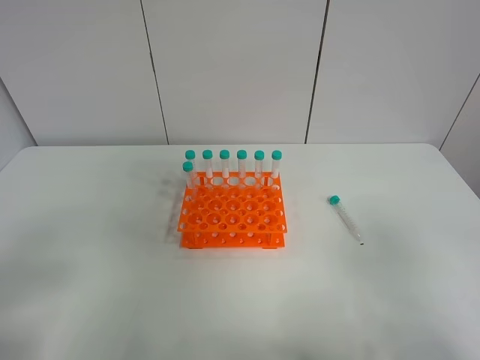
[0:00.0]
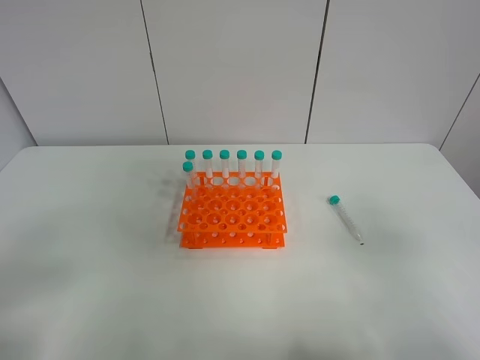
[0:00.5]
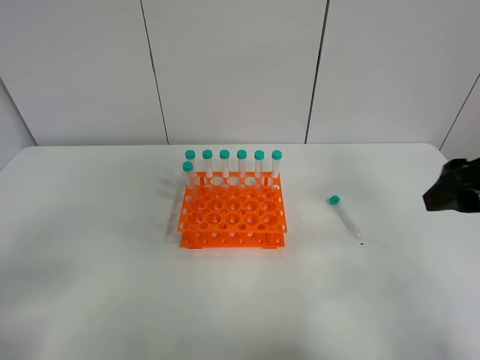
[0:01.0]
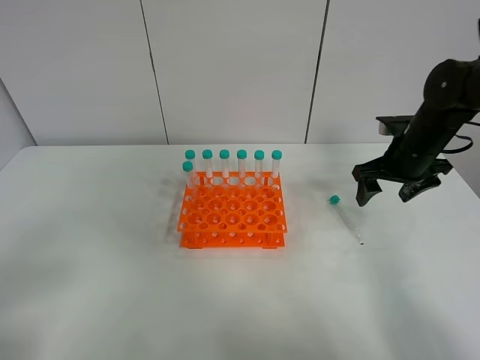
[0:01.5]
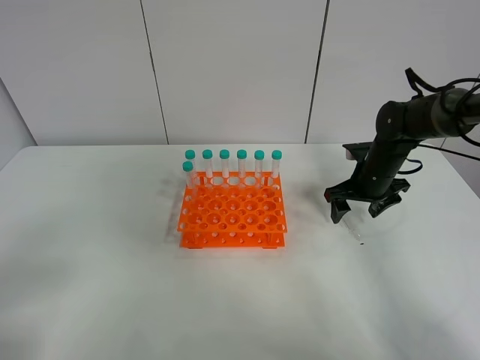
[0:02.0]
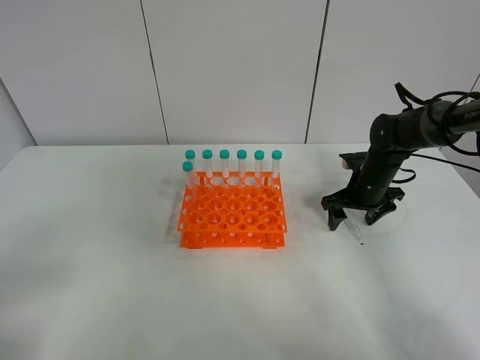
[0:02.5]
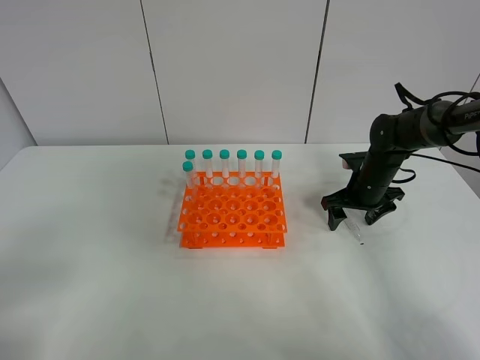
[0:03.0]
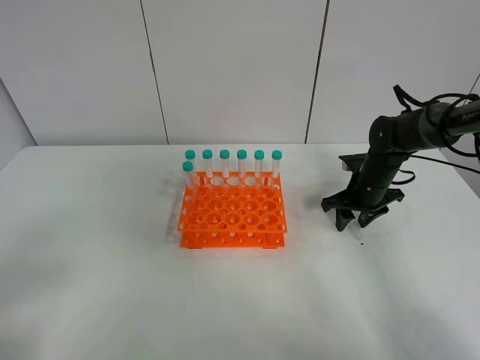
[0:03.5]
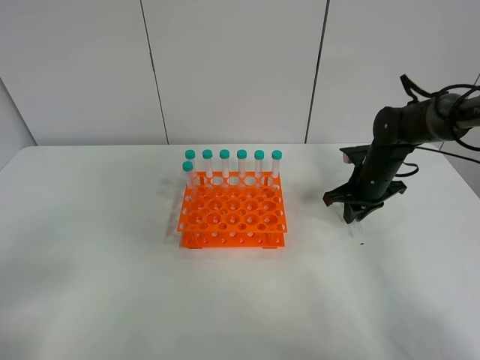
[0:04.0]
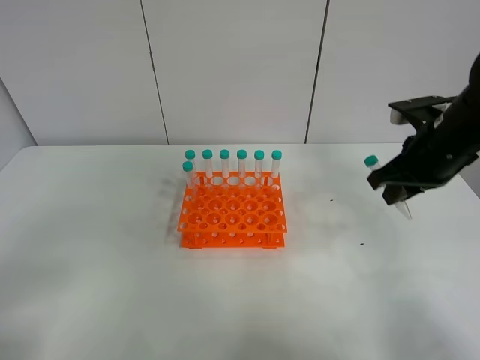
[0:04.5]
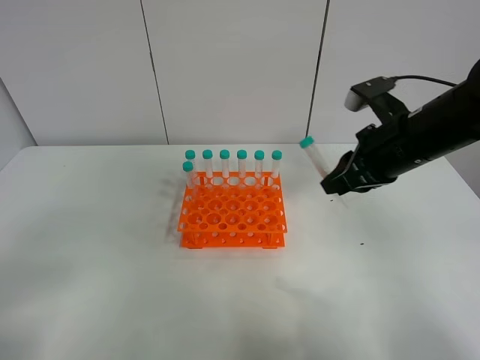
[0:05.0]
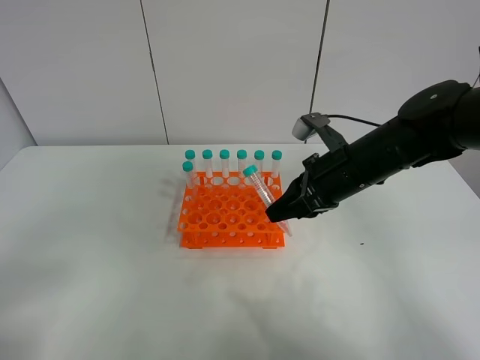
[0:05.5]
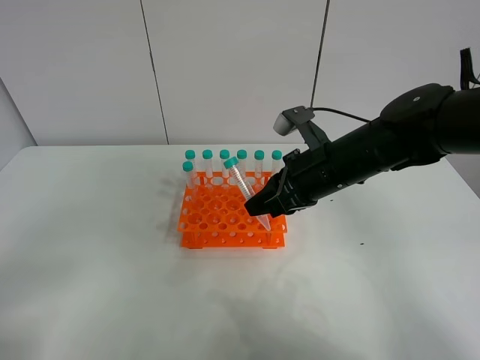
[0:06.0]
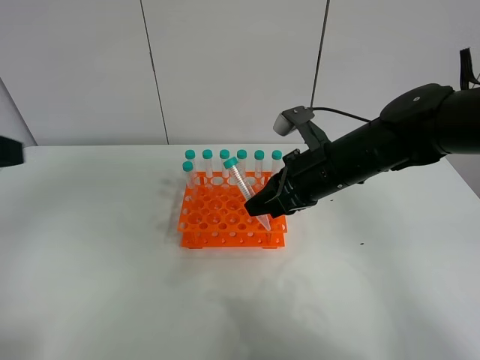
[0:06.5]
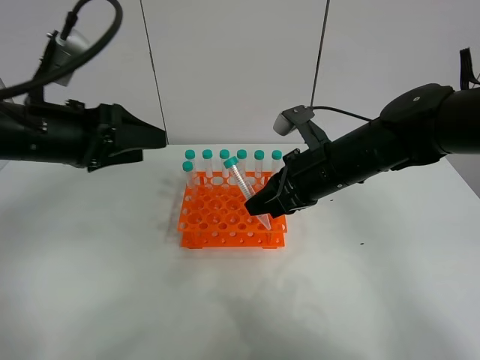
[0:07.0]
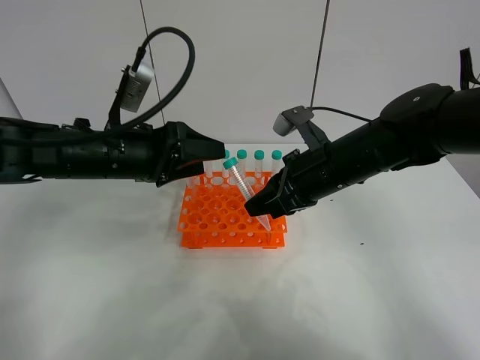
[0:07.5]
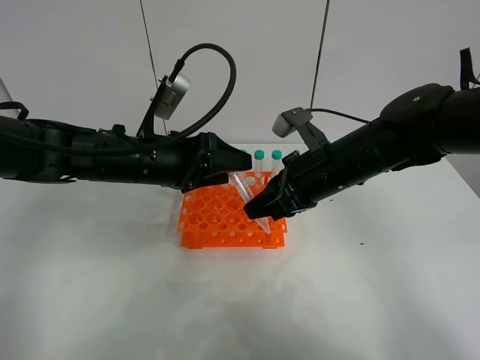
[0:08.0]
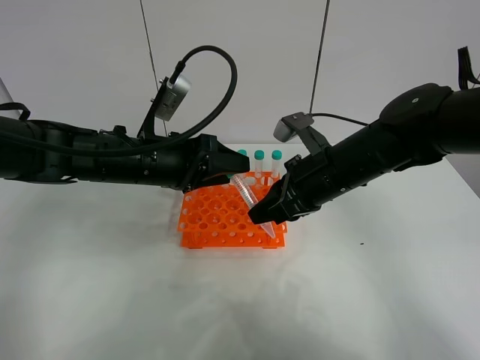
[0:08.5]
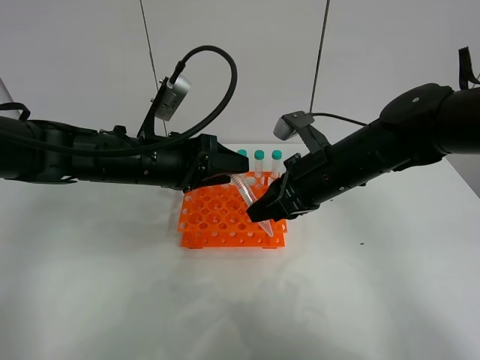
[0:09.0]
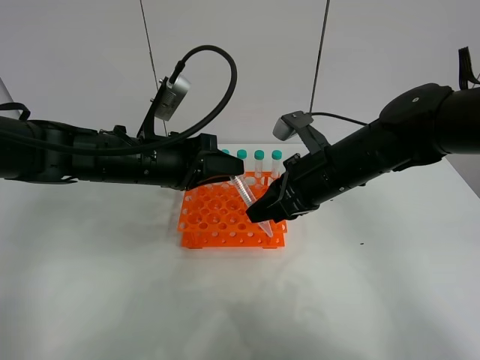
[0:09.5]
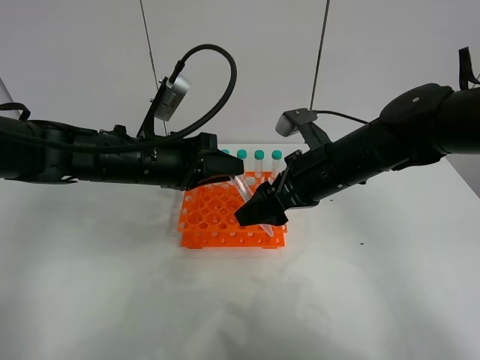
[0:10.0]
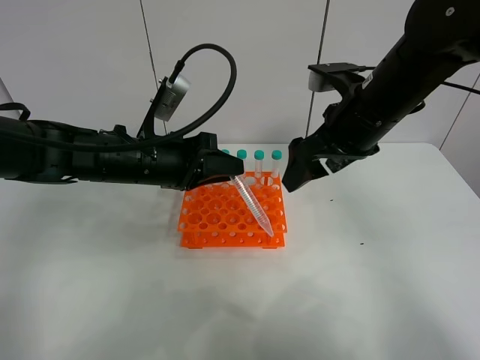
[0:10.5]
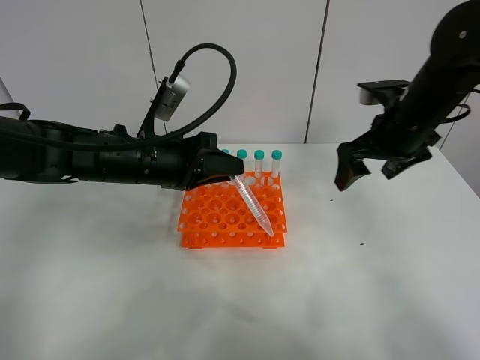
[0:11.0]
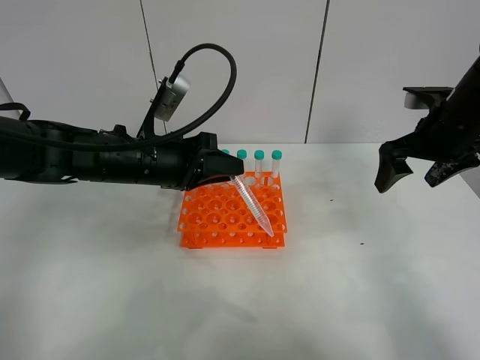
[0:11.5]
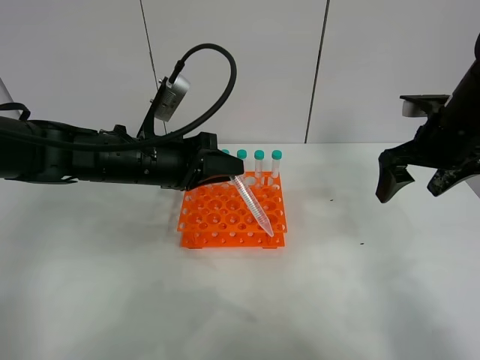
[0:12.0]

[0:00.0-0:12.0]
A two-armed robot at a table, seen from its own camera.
Task of the whole recording: Put the test tube on the table back onto the test tube rack.
Step, 0:00.0 to 0:03.5: Pick up the test tube with the right gripper.
Step, 0:04.0 to 0:10.0: Move the test tube from the right gripper to the left gripper.
0:00.0 to 0:02.0: The right gripper goes roughly 40 cm forward and downward.
0:02.0 to 0:04.0: The right gripper closes.
0:04.0 to 0:06.0: The right gripper goes approximately 20 cm to the left, backward and upward.
0:06.0 to 0:08.0: The left gripper moves forward and to the right, approximately 35 cm.
0:08.0 to 0:10.0: The left gripper closes its fingers. The right gripper opens its fingers.
0:10.0 to 0:12.0: The right gripper travels to the right by approximately 15 cm.

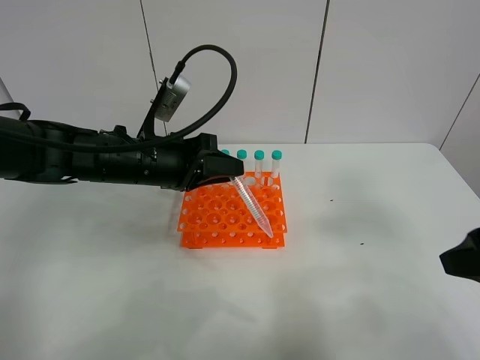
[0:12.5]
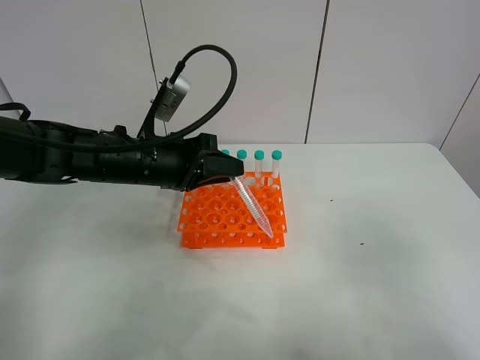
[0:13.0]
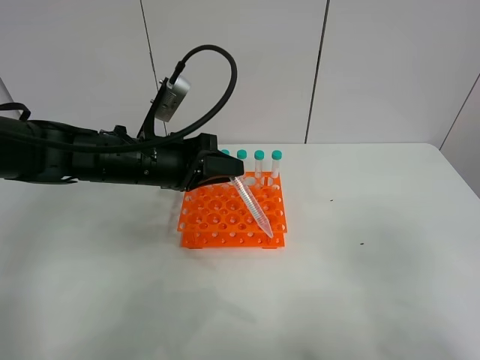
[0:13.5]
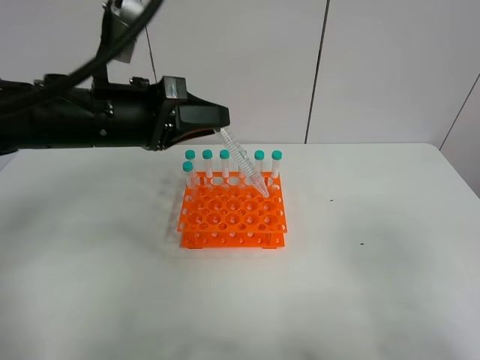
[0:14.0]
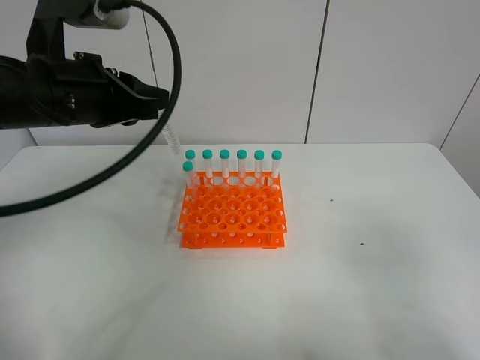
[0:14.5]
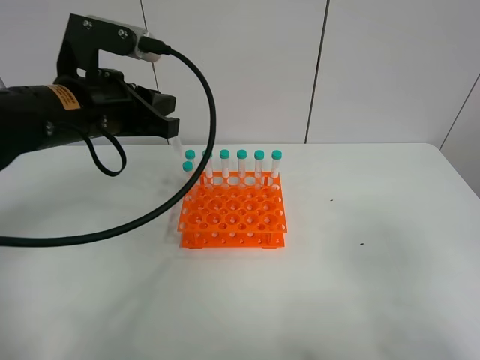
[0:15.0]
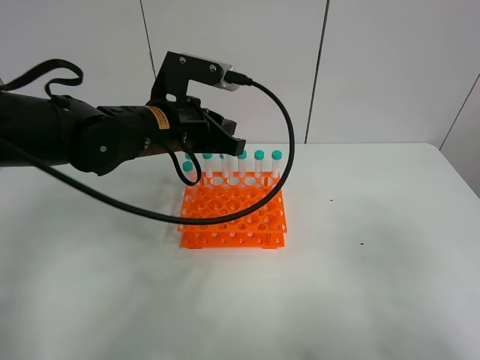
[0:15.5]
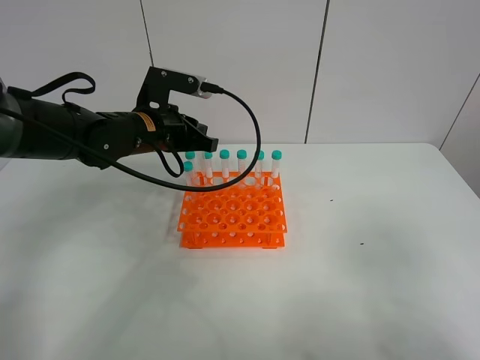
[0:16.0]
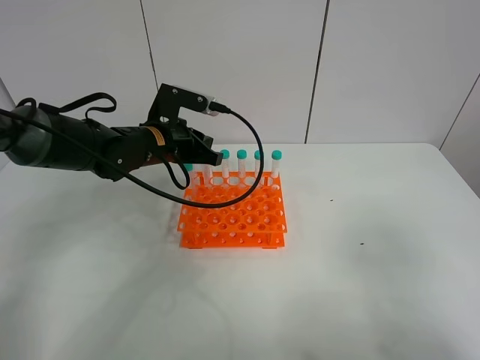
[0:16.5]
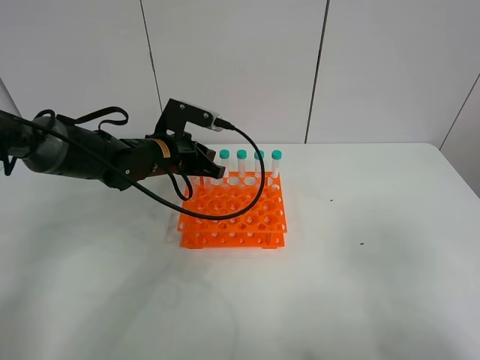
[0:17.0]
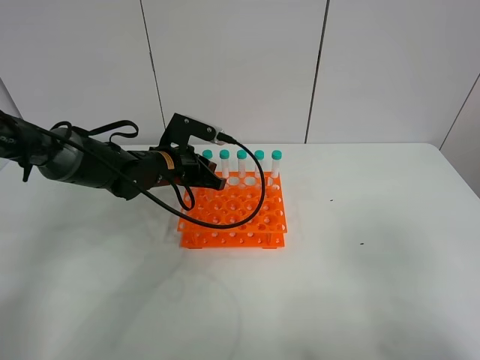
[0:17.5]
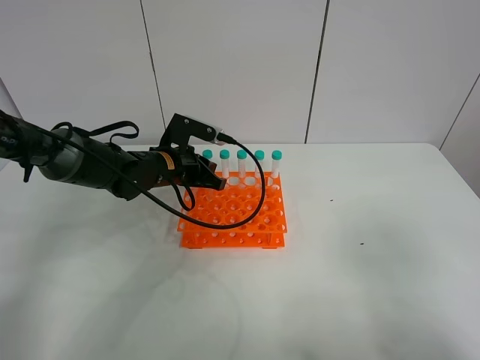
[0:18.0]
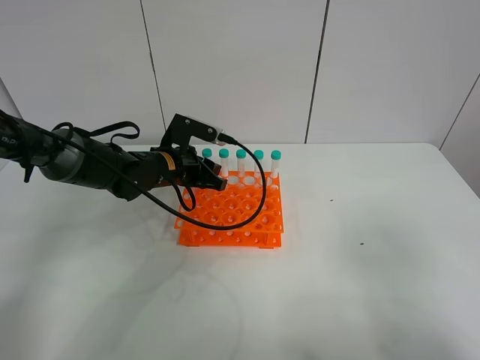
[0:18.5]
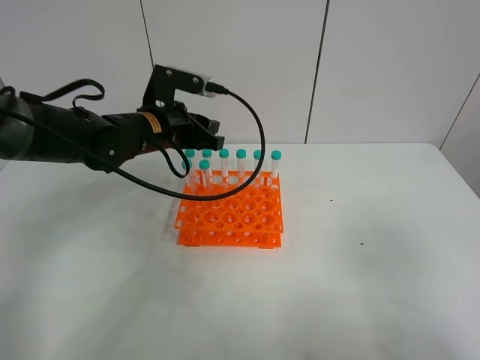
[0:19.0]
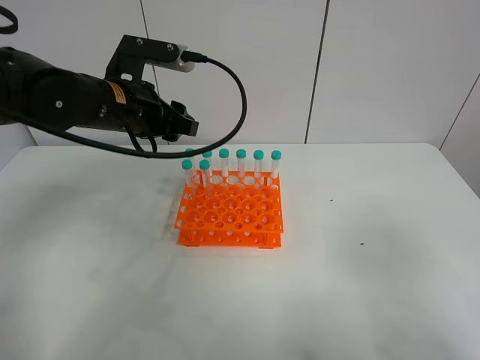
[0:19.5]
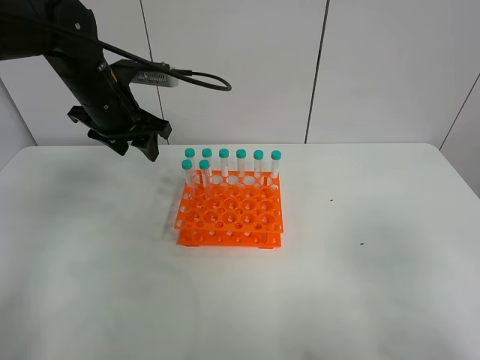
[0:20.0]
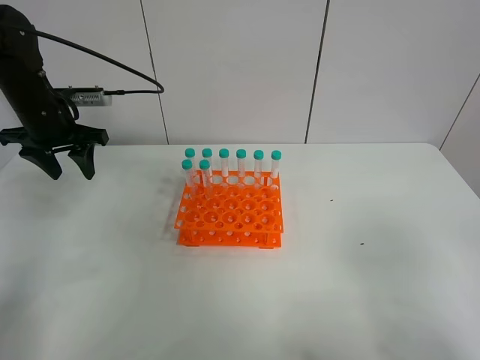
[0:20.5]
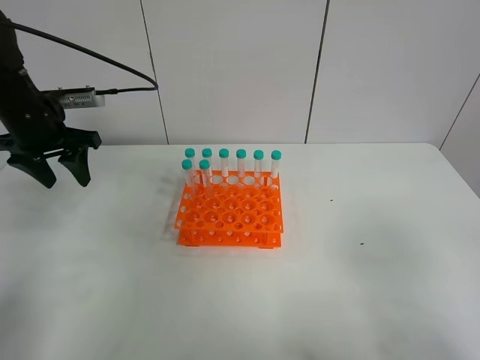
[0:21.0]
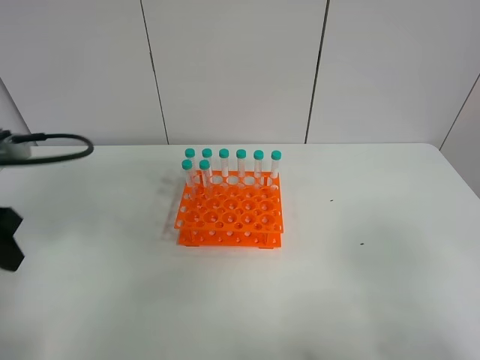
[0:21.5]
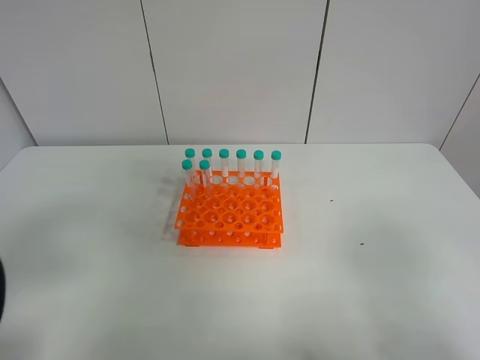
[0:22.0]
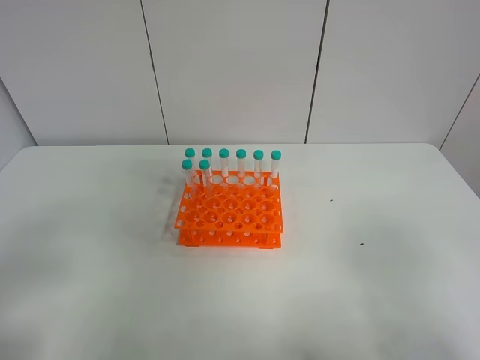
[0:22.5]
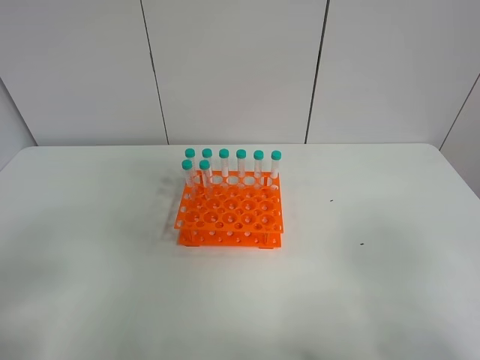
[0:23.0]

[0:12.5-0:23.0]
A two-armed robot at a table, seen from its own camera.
Task of the whole recording: Put the test tube on the table back onto the test tube rack.
Step, 0:12.5 to 0:18.5: Place the test tube on the test tube rack with the left gripper.
0:12.5 to 0:14.5: The left gripper travels upward and to the left by roughly 15 cm. The right gripper heads backward, covering roughly 10 cm.
0:14.5 to 0:16.5: The left gripper goes some 20 cm downward, forward and to the right.
0:16.5 to 0:19.0: The left gripper opens its fingers.
0:19.0 to 0:21.0: The left gripper shifts some 15 cm to the left.
0:21.0 to 0:23.0: The left gripper shifts approximately 35 cm backward.

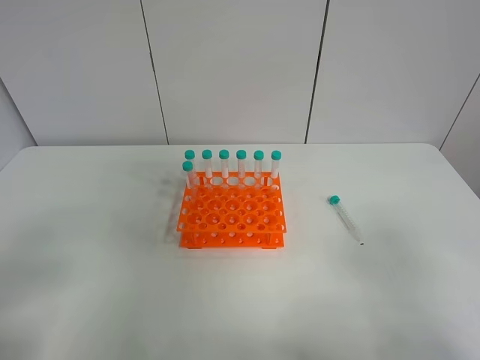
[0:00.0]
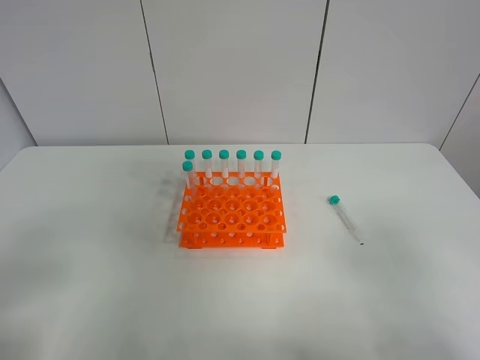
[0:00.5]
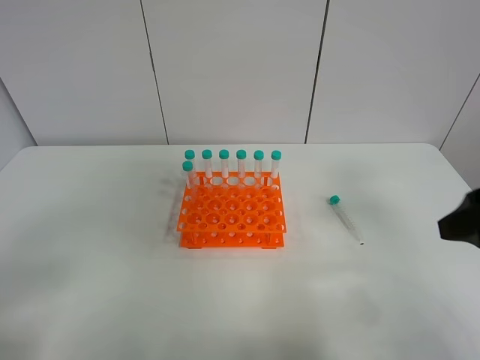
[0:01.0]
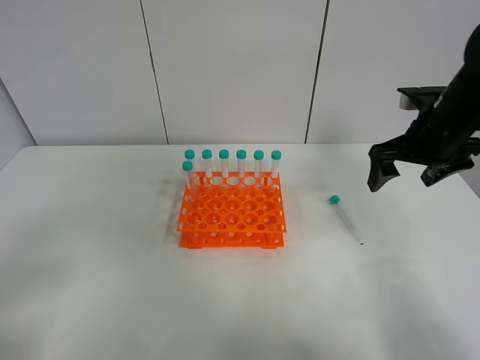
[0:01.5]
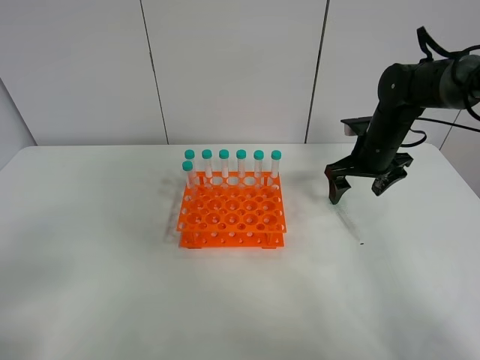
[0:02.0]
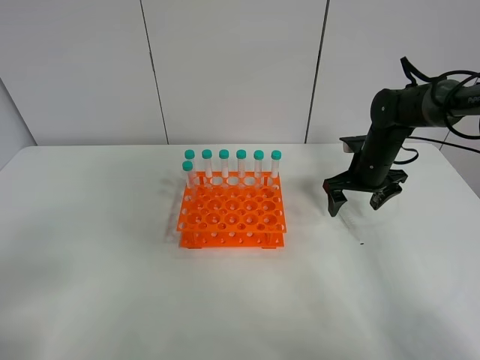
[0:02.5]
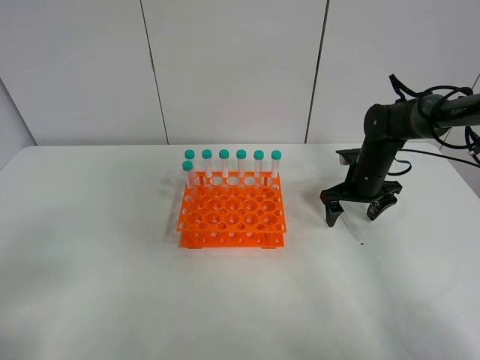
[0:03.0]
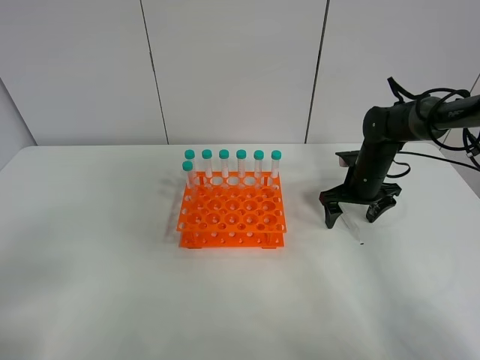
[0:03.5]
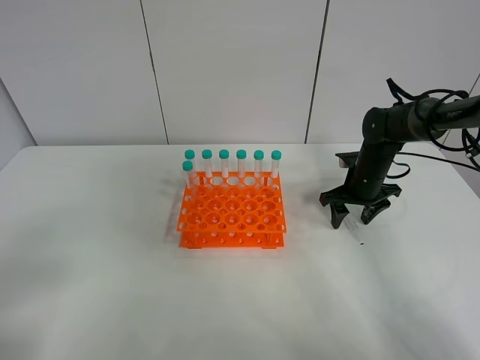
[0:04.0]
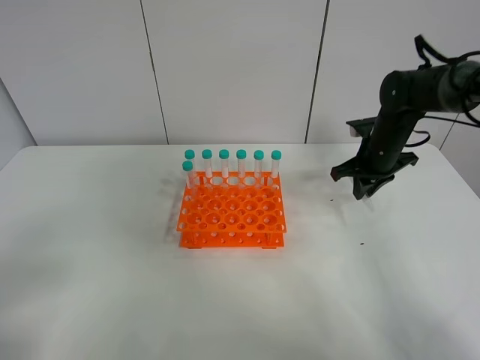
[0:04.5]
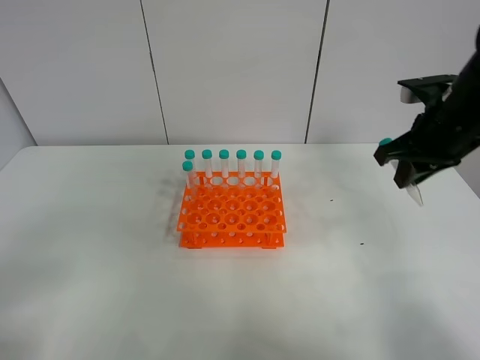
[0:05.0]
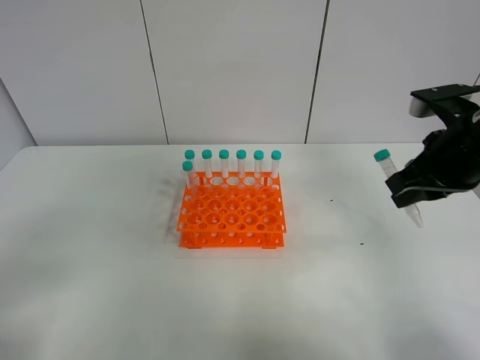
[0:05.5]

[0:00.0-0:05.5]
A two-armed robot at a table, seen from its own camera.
Task of the whole recording: Put the test tube on the table back onto the test tube rack.
Step, 0:00.0 to 0:04.0: Pick up the test tube with the right gripper.
0:00.0 to 0:02.0: The right gripper shifts about 40 cm forward.
0:02.0 to 0:03.5: The right gripper heads downward, covering approximately 10 cm.
0:03.5 to 0:05.5: The right gripper travels upward and backward by approximately 25 cm, and closes.
